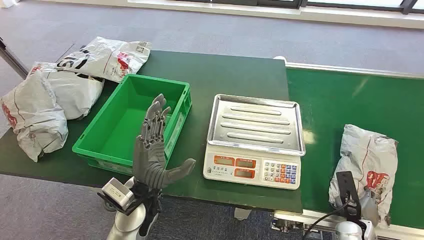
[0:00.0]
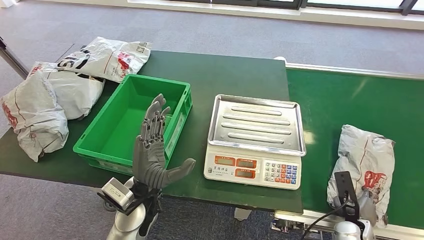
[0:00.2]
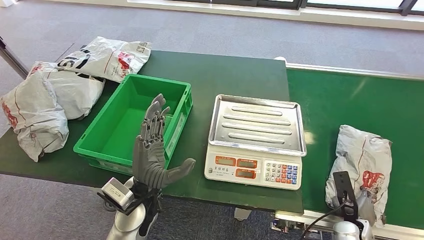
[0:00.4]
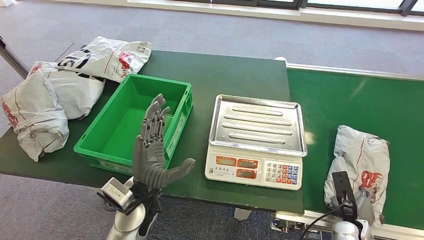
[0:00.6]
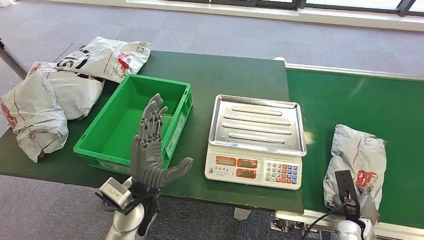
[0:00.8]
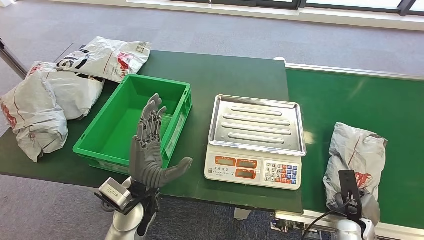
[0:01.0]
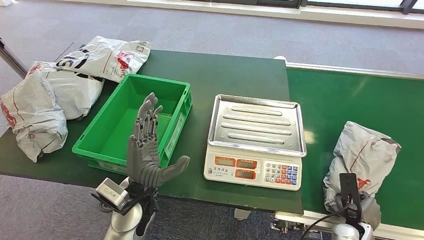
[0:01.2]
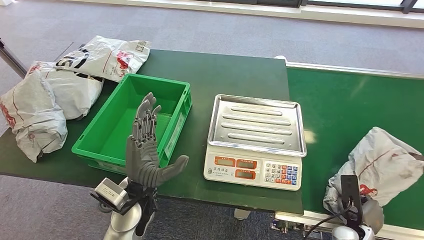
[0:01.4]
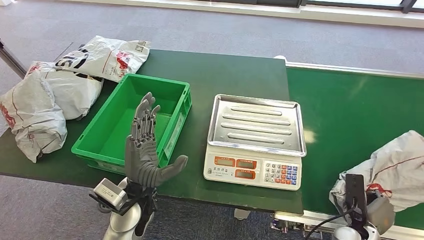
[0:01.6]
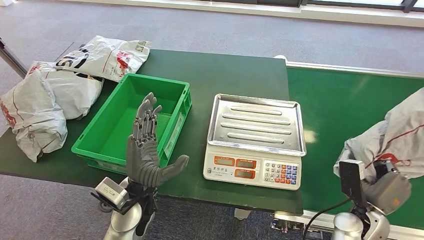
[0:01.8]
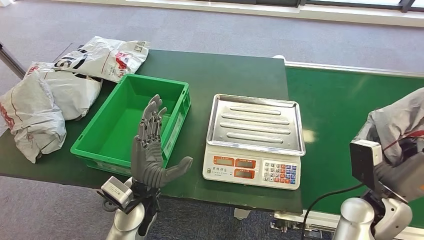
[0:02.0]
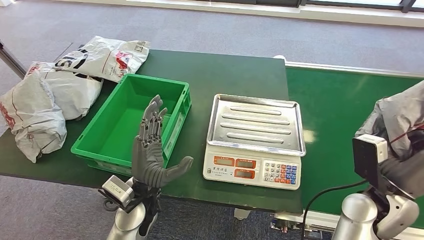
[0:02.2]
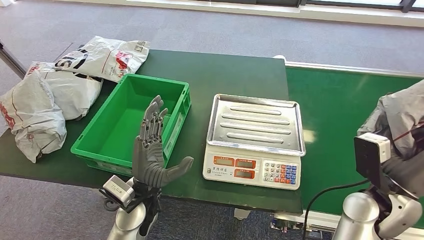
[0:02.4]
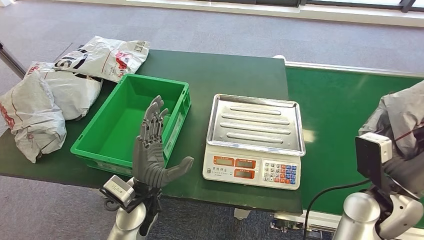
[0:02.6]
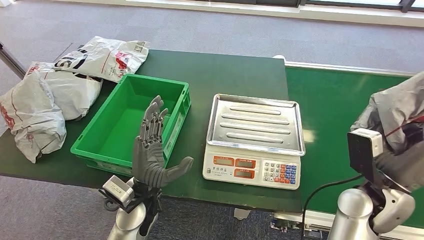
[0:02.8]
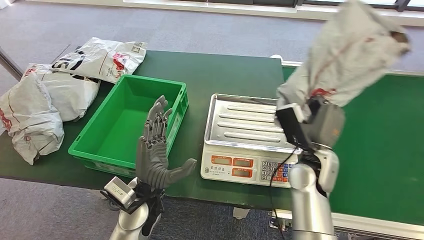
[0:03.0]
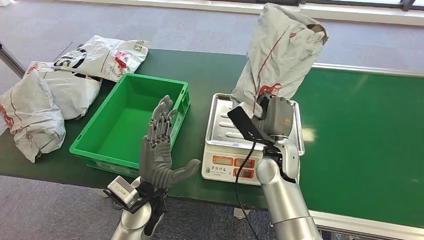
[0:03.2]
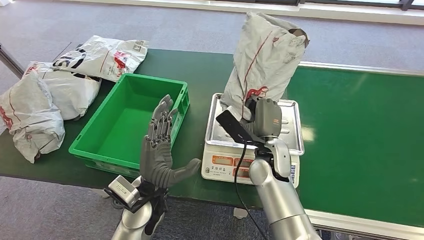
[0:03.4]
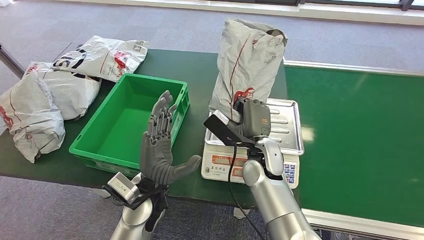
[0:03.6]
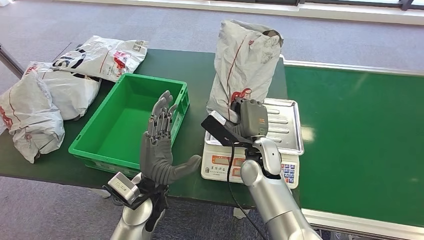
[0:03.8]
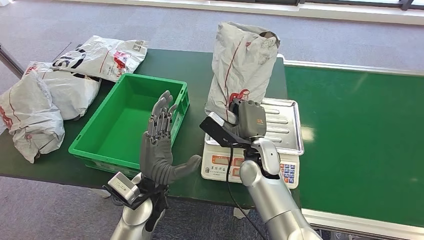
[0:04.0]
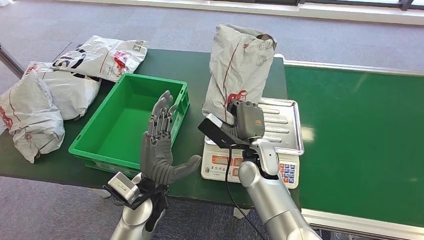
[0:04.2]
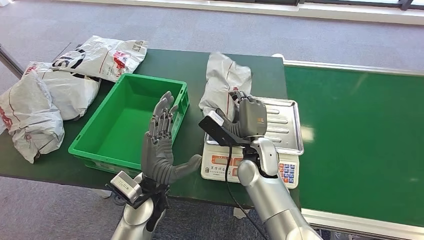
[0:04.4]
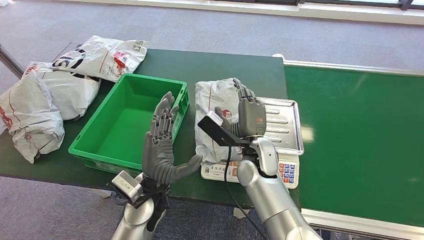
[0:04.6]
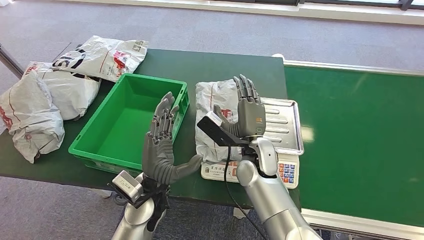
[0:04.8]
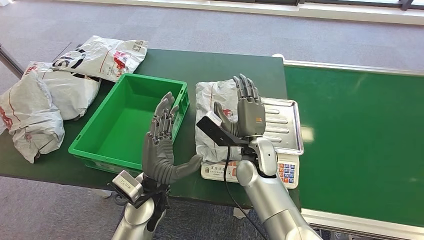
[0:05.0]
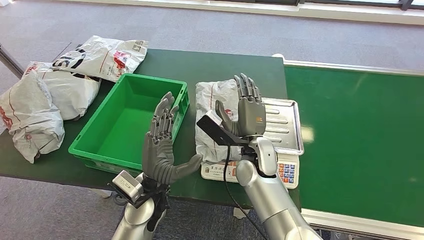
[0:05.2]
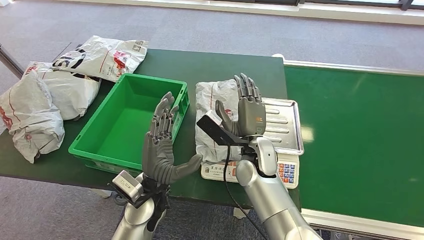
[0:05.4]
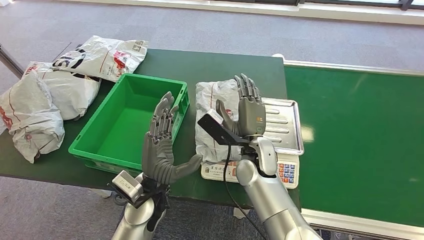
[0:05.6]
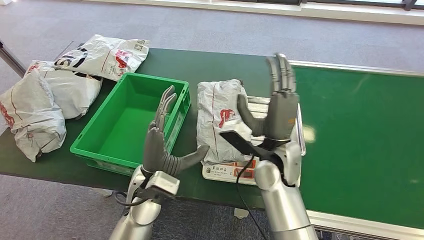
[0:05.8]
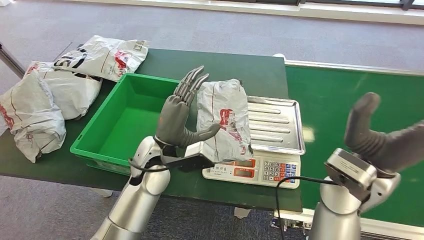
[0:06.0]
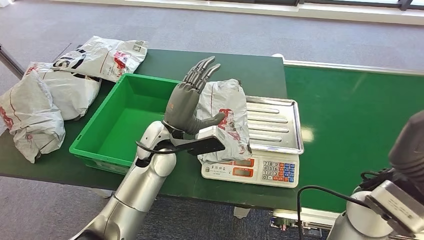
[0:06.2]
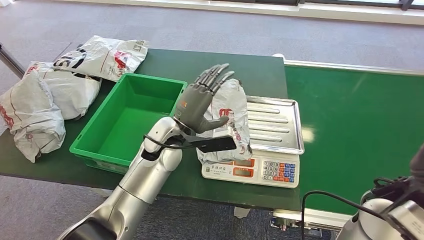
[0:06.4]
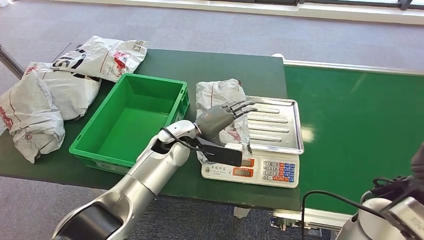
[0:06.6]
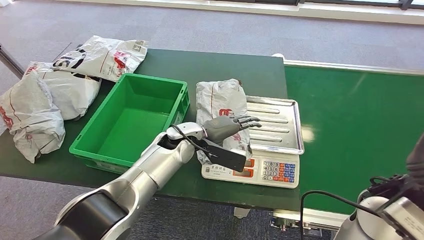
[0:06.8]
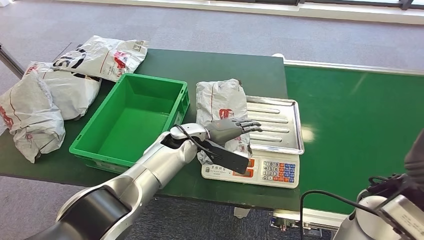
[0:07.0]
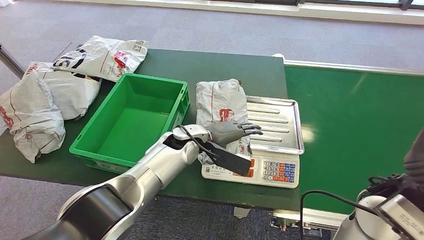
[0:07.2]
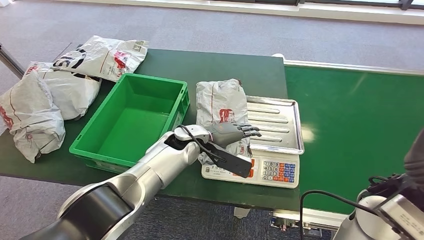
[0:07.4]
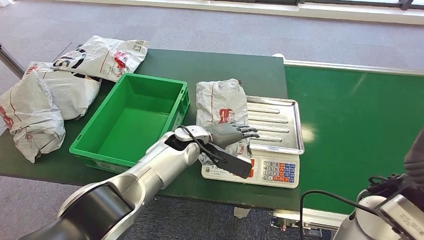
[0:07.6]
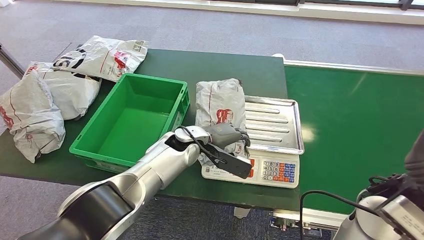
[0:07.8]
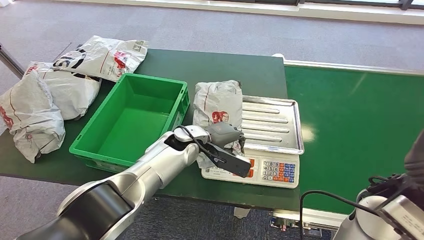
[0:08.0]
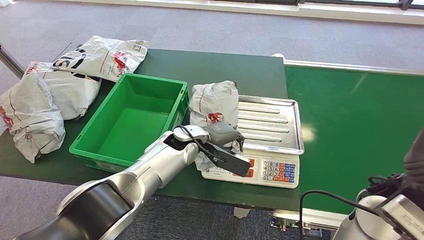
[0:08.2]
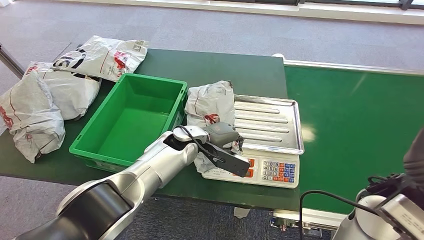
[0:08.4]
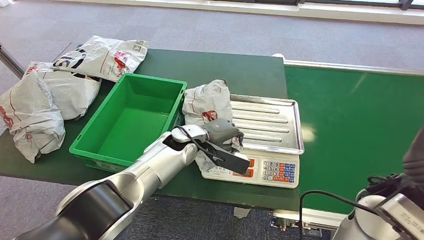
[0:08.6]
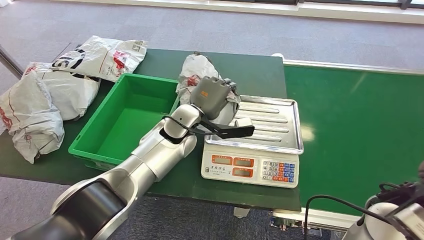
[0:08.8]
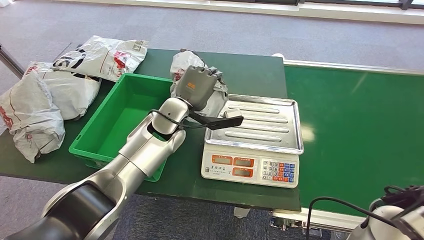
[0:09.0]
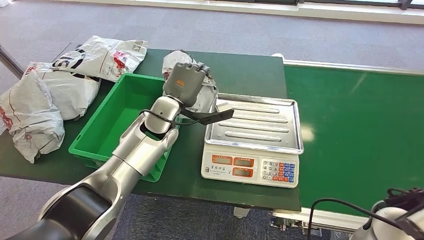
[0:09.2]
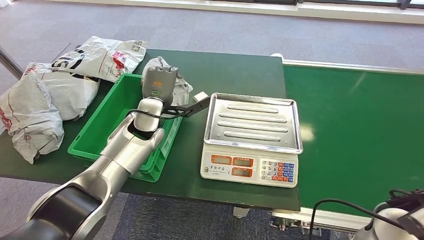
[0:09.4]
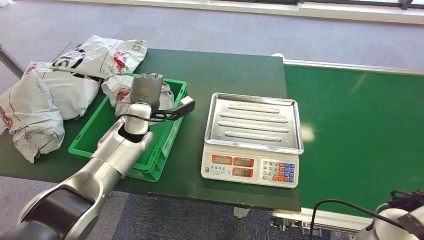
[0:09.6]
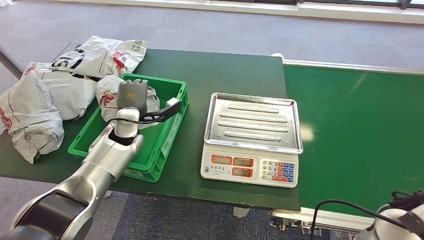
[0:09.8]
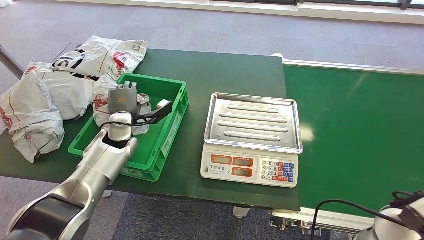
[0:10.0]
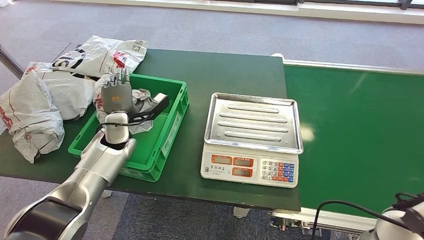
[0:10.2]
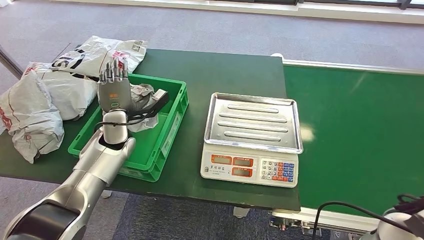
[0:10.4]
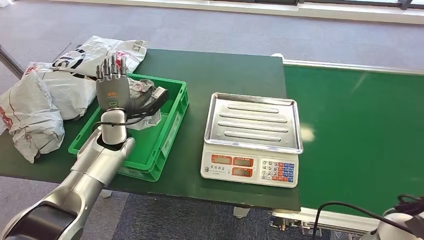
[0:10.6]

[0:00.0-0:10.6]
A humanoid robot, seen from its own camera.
Step, 0:00.0 to 0:01.6: Pick up the package from the conveyor belt.
Step, 0:02.0 to 0:04.4: Place the package onto the inbound machine.
Step, 0:08.4 to 0:09.0: Pick up the package from the inbound machine.
Step, 0:09.2 to 0:10.4: Place the package into the parcel locker.
0:06.0 to 0:07.6: The left hand moves forward, roughly 10 cm; the right hand travels to the right by approximately 5 cm.
0:07.6 to 0:09.0: The left hand heads upward, covering some 5 cm.
0:09.0 to 0:10.6: The left hand travels to the left by roughly 15 cm.

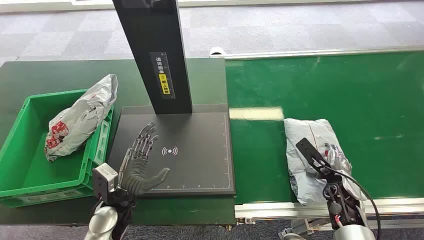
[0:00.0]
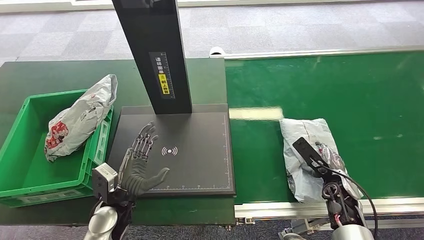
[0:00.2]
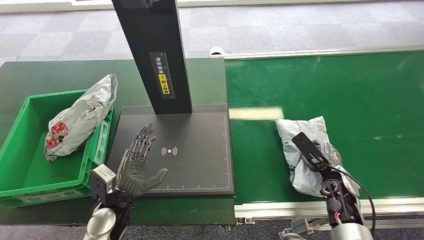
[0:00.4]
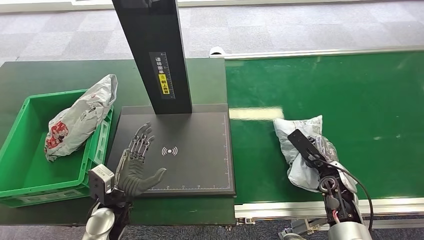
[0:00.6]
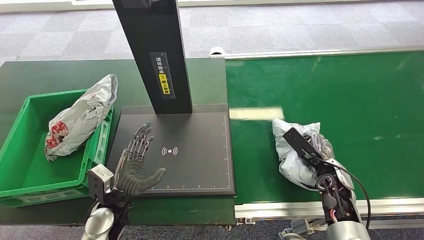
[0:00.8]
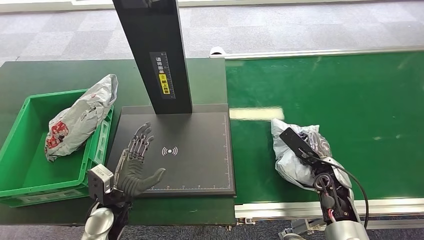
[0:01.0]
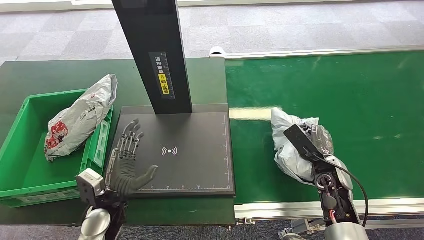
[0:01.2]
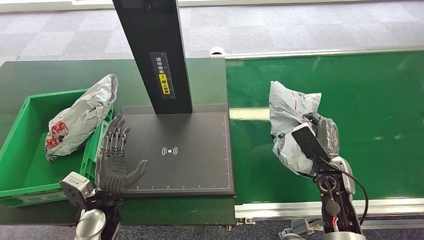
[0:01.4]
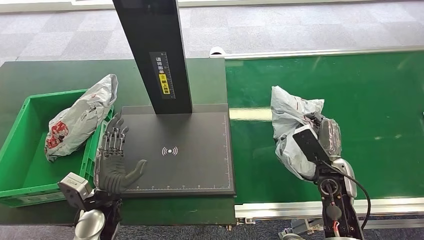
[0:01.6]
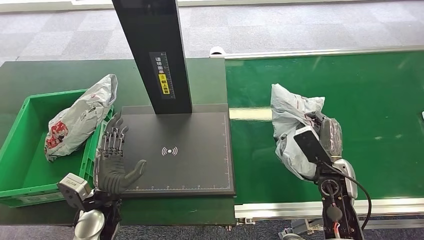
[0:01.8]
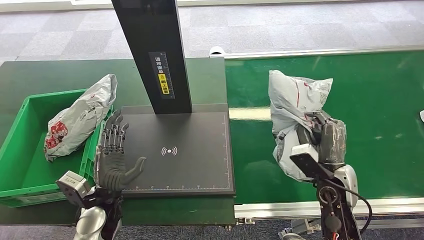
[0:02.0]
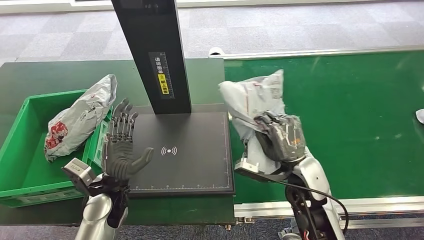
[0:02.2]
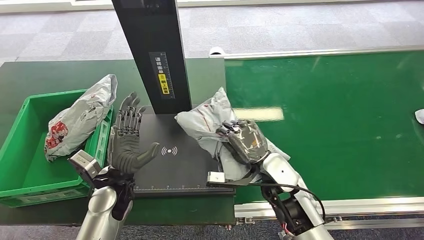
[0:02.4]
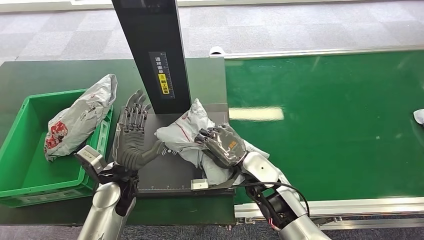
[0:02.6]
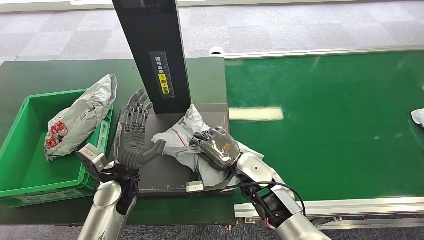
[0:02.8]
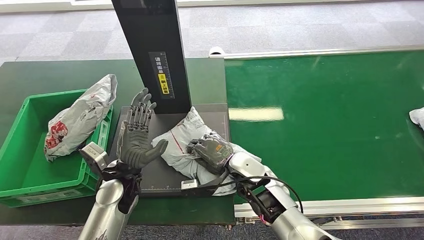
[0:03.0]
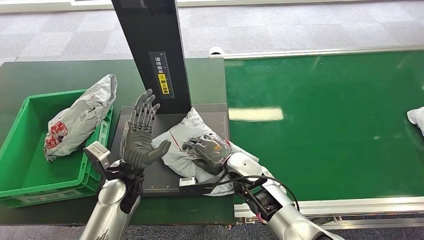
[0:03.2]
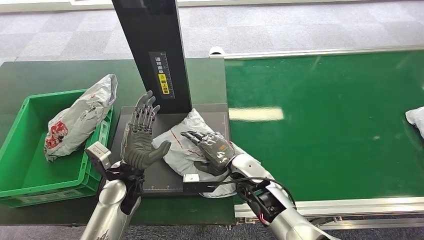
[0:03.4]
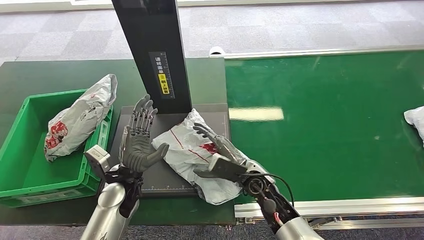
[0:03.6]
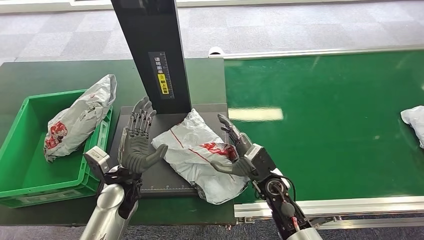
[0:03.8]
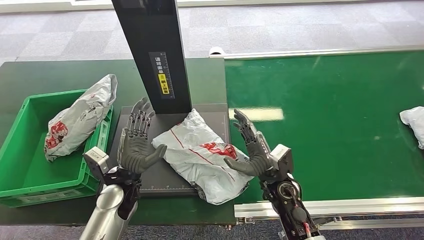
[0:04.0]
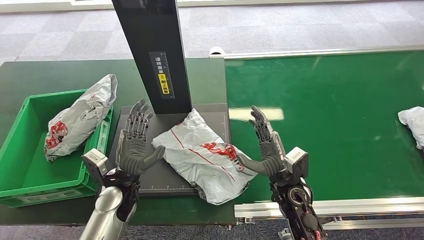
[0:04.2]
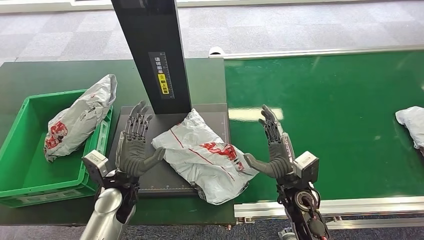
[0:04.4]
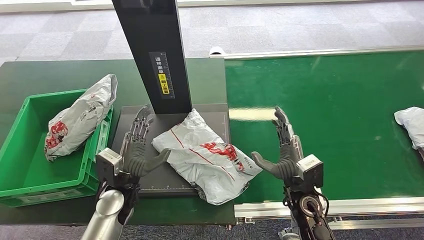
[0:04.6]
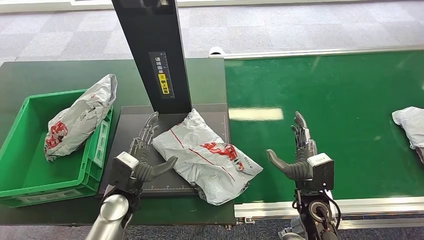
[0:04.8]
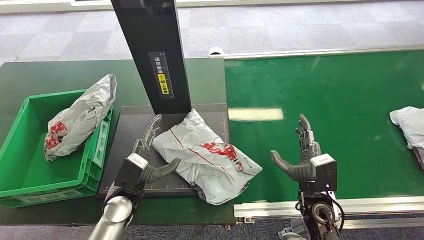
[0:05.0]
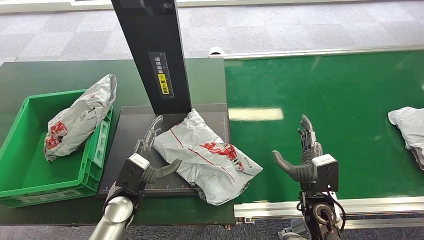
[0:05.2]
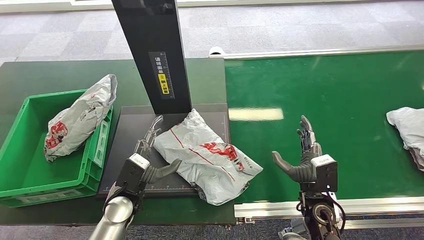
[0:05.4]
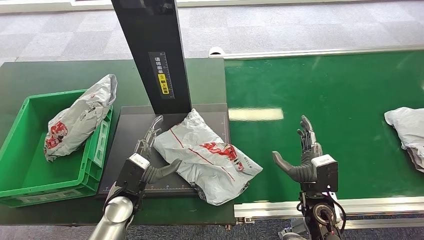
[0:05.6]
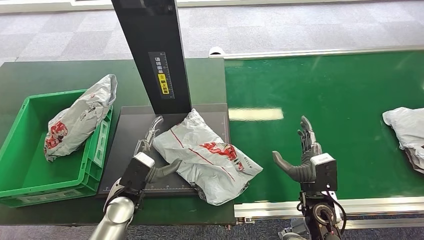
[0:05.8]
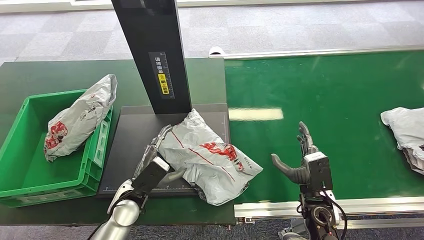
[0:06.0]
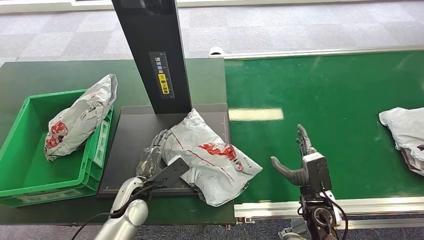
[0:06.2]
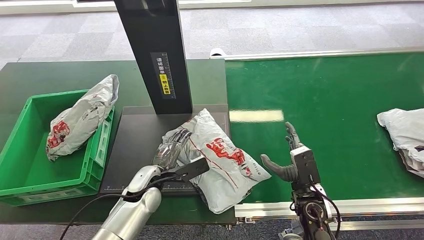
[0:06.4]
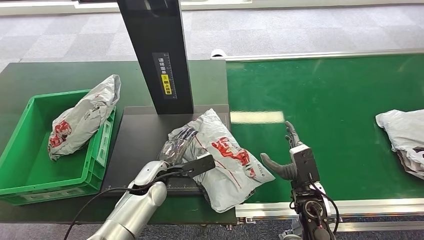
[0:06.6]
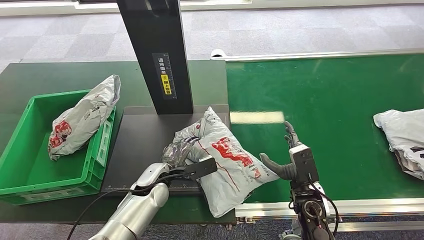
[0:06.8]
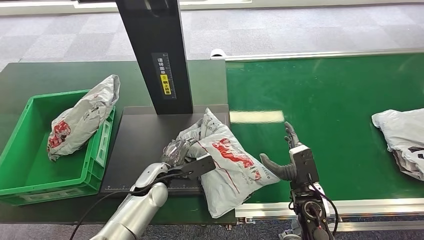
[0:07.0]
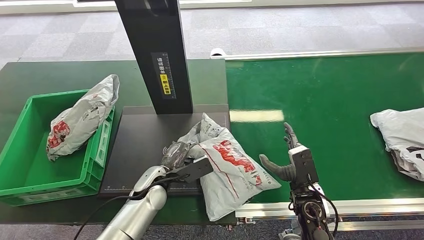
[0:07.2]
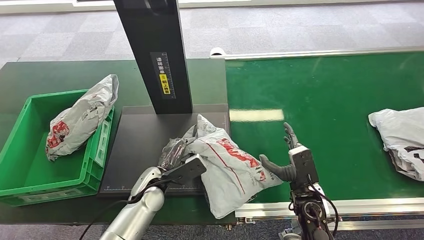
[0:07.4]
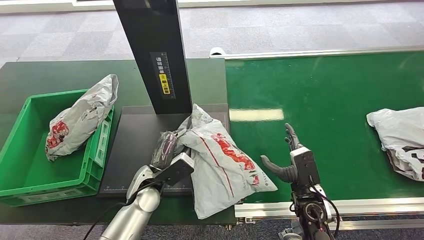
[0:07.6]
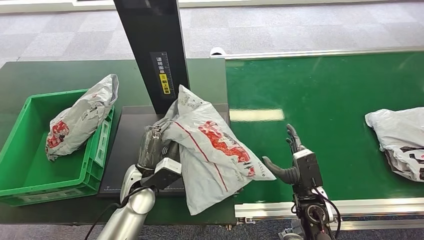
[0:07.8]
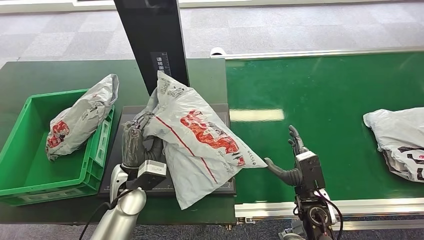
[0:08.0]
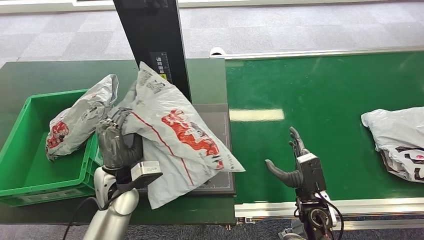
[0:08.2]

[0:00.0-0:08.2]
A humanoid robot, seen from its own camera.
Step, 0:00.0 to 0:01.6: Pick up the package from the conveyor belt.
Step, 0:01.8 to 0:04.8: Place the package onto the inbound machine.
0:03.2 to 0:05.0: The left hand shifts by roughly 5 cm. Meanwhile the right hand goes some 15 cm to the right and backward.
